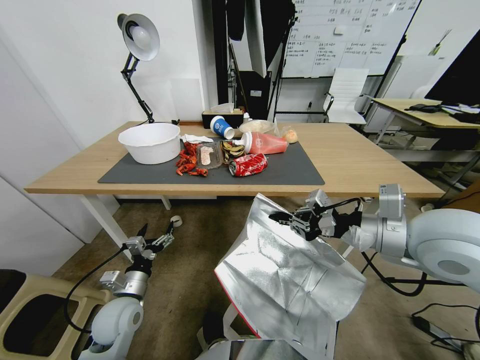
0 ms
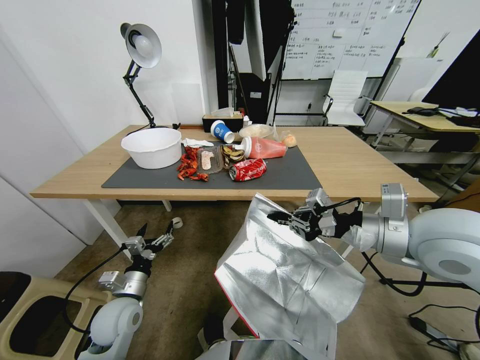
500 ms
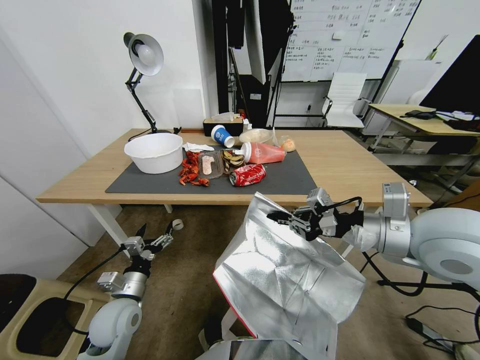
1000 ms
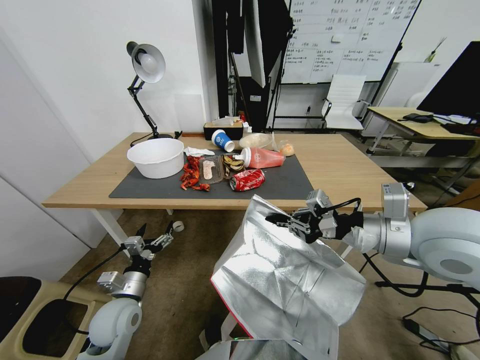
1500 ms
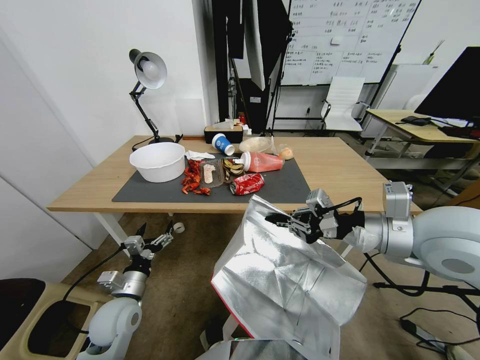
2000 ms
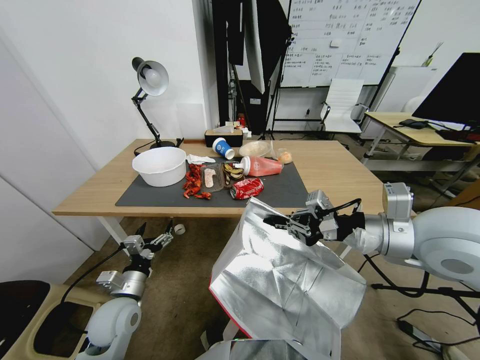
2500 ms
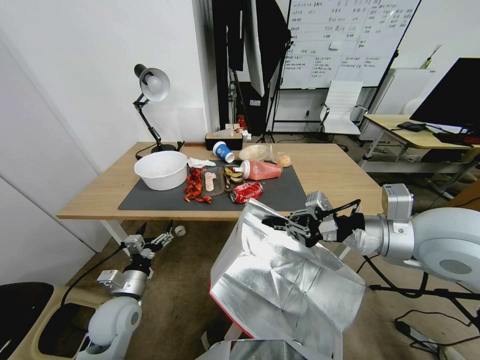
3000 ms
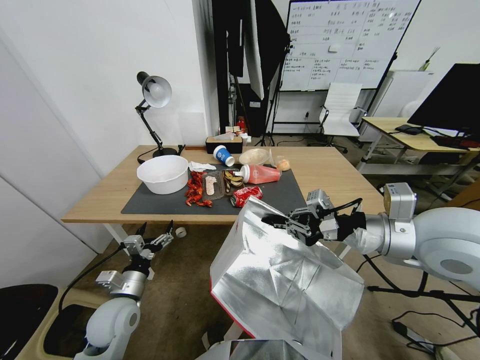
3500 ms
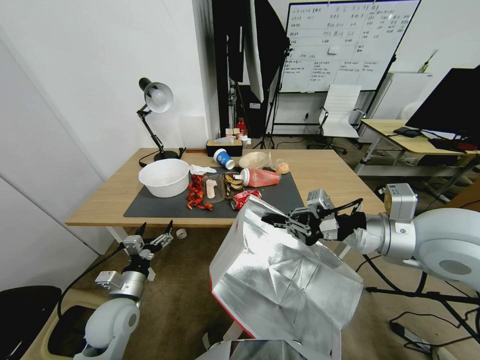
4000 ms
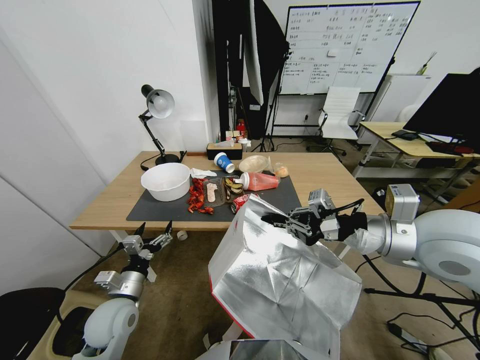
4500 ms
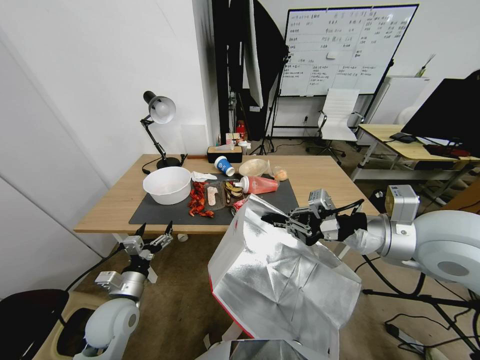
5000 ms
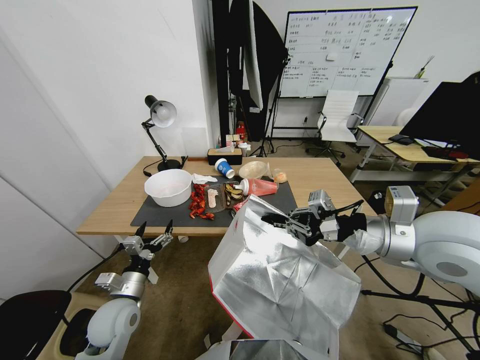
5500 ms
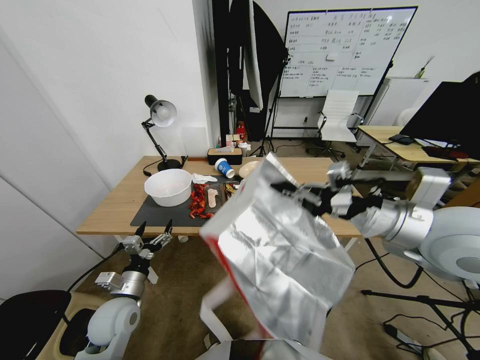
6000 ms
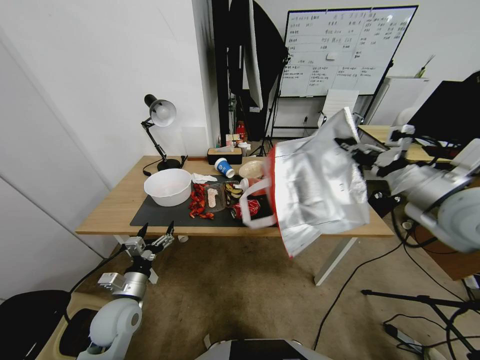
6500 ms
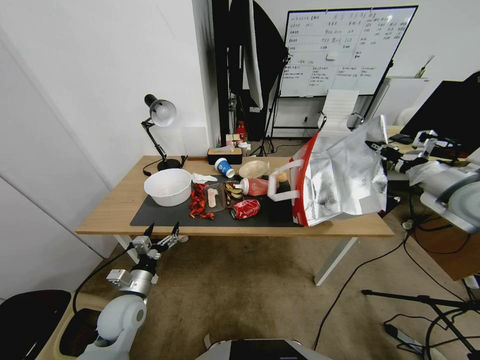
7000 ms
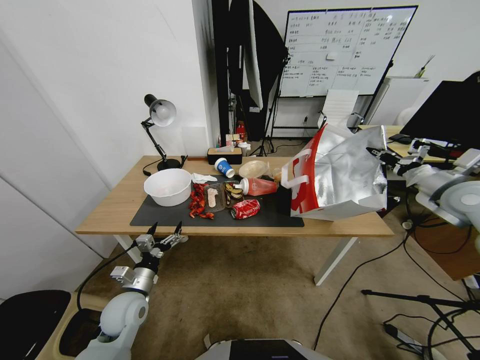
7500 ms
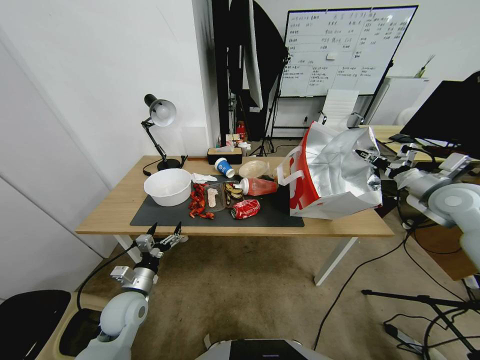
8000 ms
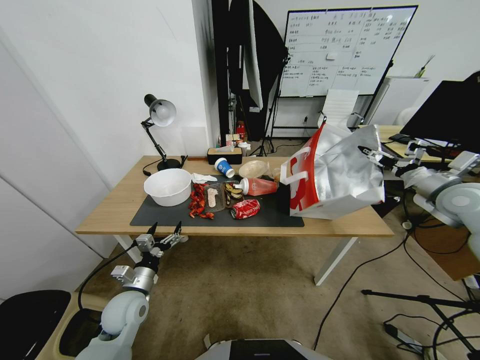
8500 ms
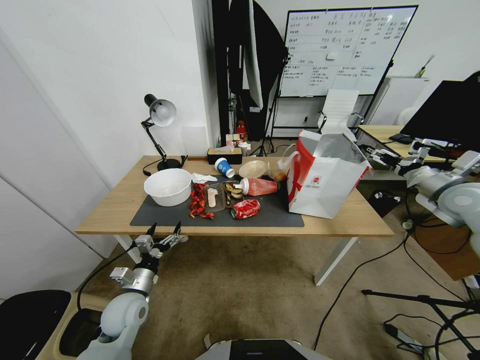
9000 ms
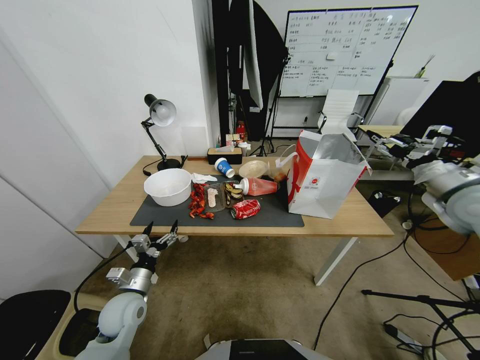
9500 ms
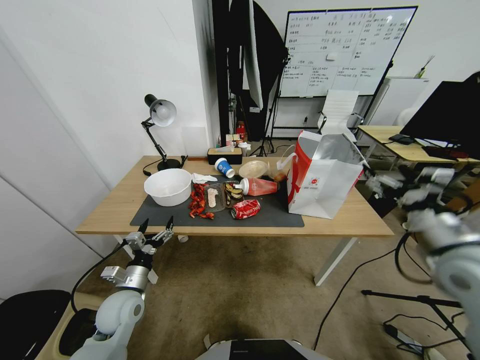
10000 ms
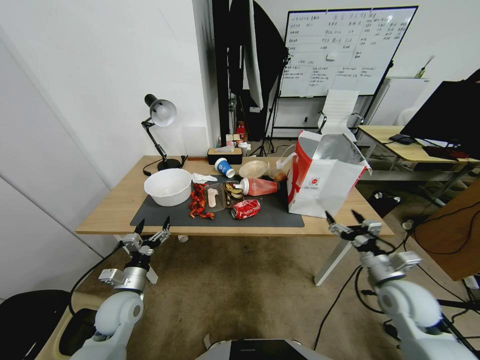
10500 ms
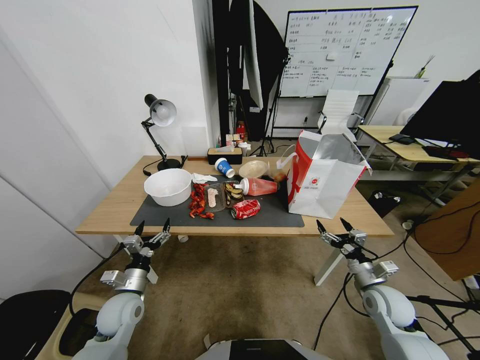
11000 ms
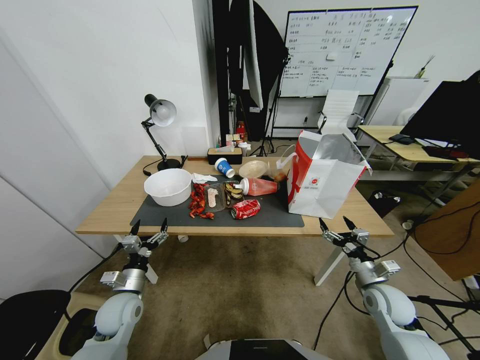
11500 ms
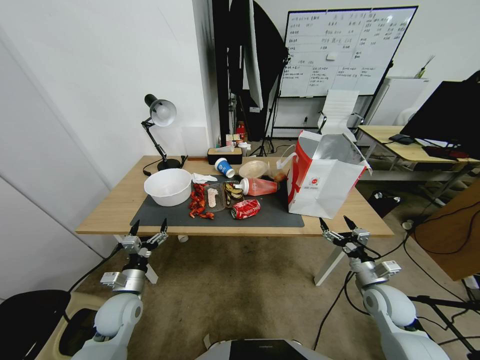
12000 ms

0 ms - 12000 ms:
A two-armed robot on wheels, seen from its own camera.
Task of the whole recording: Pick up the food delivery bag from the floor and place it on the table.
6000 ms - 8000 ms: The right gripper heads to the right and forward, covering some 25 cm, and opens up.
8000 ms - 10000 ms: The right gripper moves backward and to the left, some 20 cm, and opens.
10000 ms - 12000 ms: The right gripper is displaced downward by approximately 20 cm.
